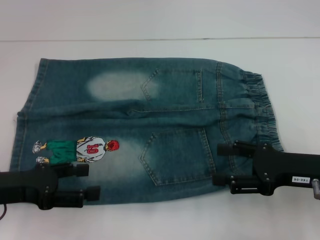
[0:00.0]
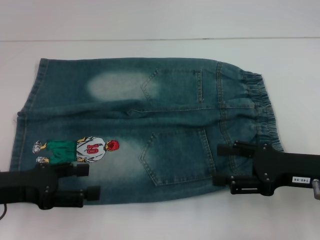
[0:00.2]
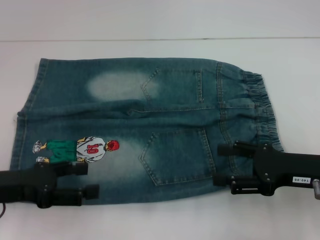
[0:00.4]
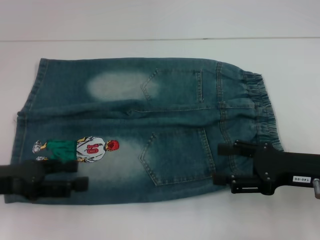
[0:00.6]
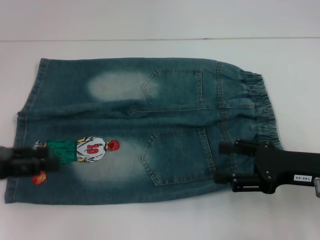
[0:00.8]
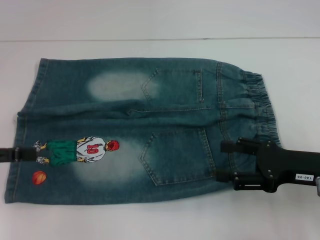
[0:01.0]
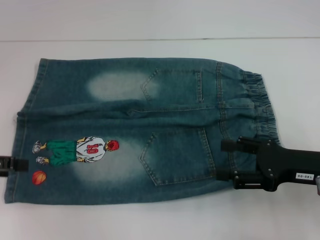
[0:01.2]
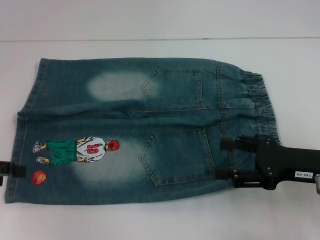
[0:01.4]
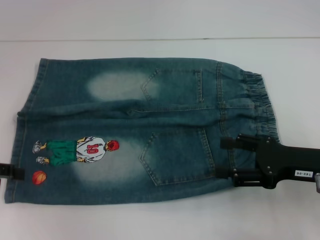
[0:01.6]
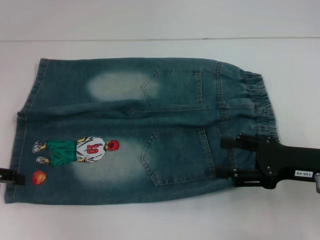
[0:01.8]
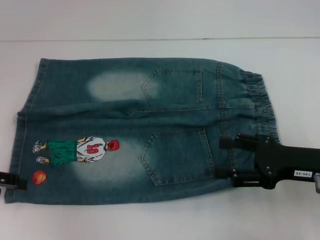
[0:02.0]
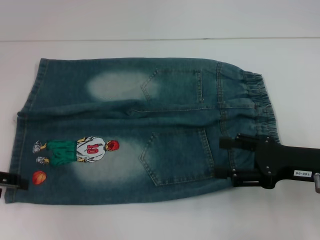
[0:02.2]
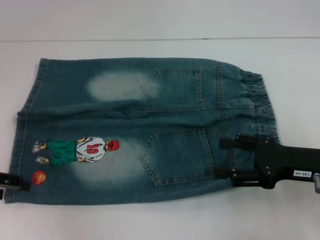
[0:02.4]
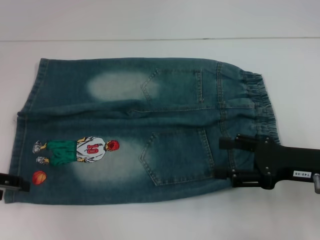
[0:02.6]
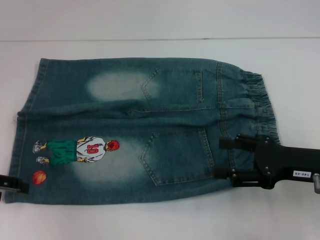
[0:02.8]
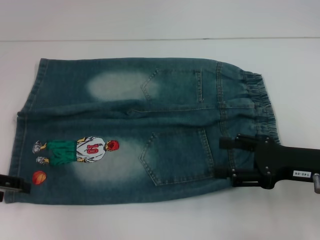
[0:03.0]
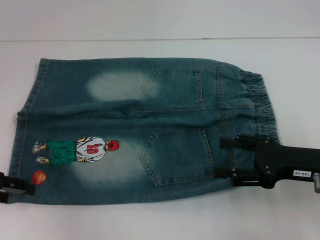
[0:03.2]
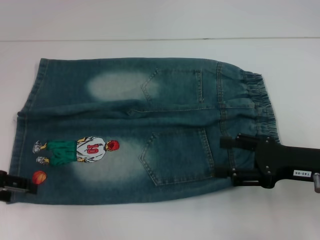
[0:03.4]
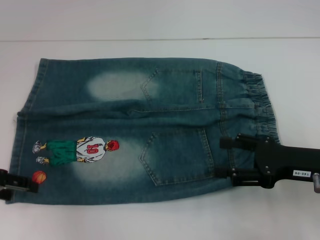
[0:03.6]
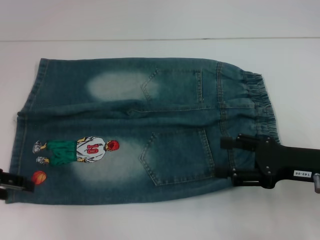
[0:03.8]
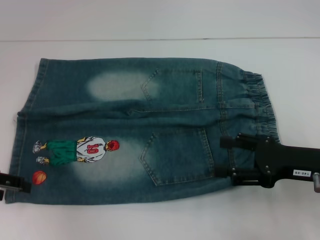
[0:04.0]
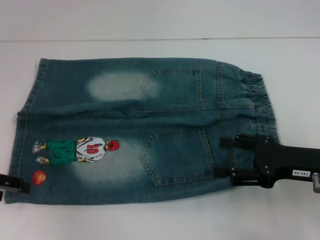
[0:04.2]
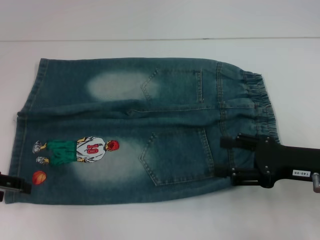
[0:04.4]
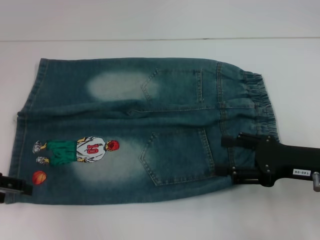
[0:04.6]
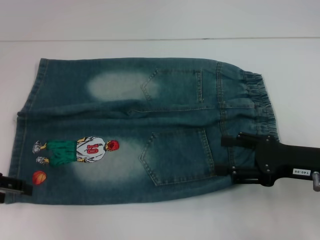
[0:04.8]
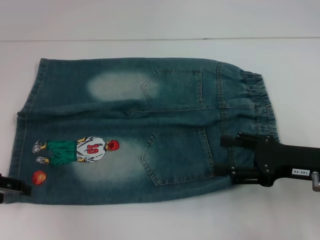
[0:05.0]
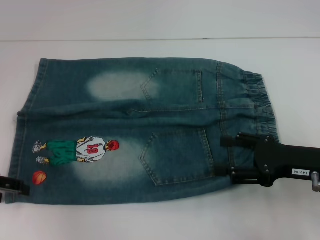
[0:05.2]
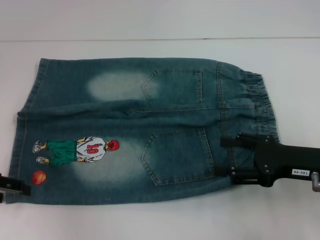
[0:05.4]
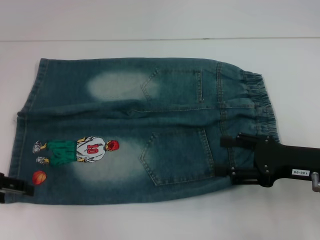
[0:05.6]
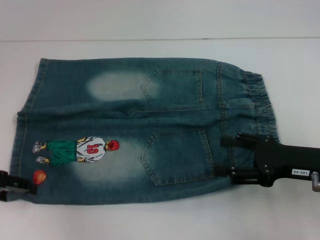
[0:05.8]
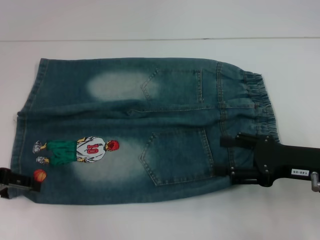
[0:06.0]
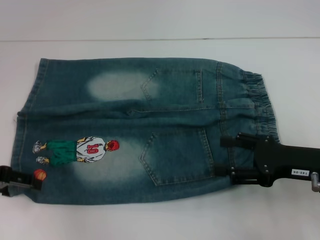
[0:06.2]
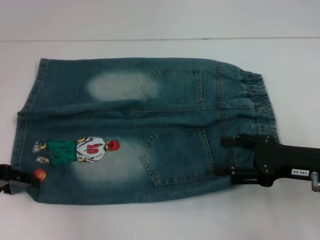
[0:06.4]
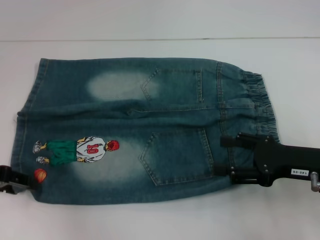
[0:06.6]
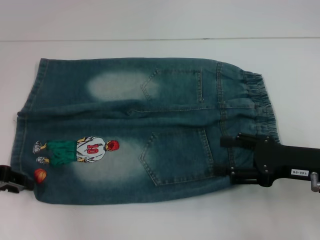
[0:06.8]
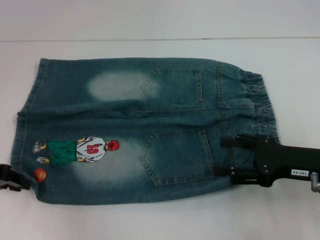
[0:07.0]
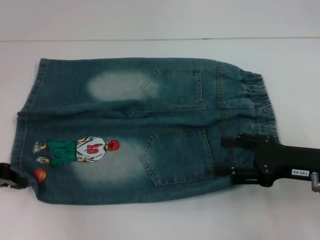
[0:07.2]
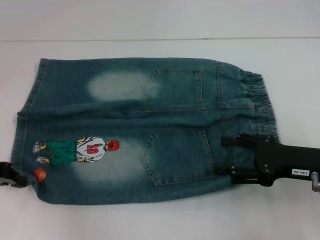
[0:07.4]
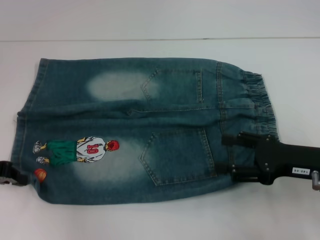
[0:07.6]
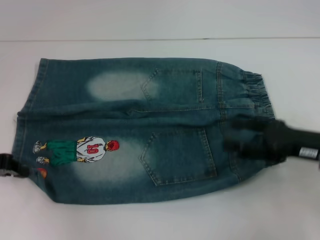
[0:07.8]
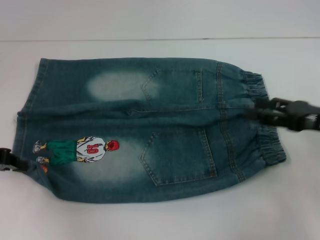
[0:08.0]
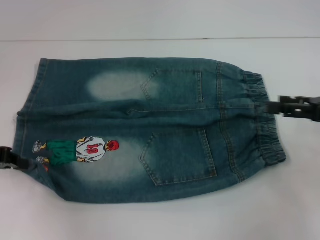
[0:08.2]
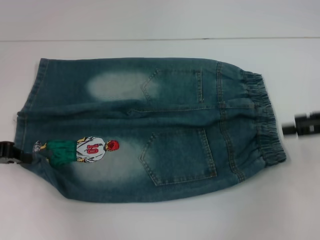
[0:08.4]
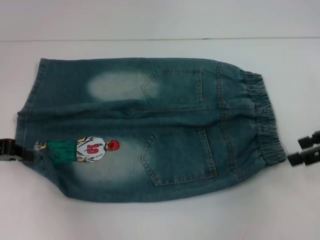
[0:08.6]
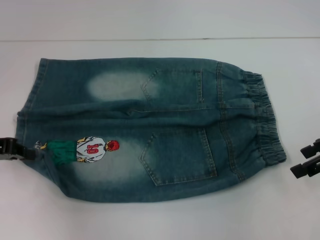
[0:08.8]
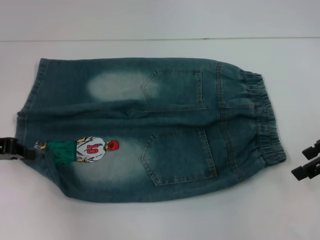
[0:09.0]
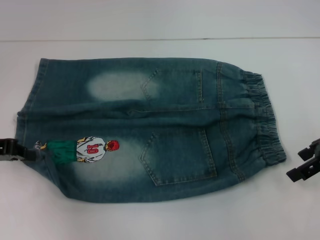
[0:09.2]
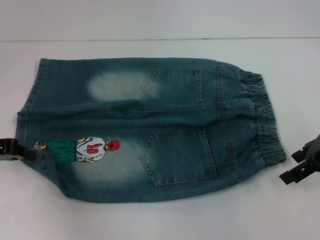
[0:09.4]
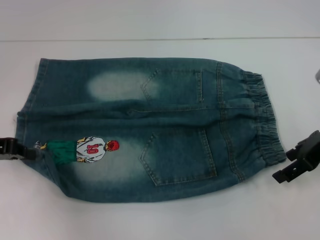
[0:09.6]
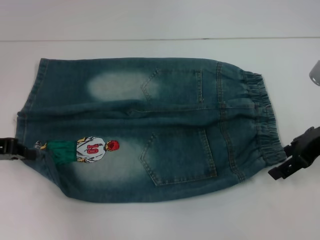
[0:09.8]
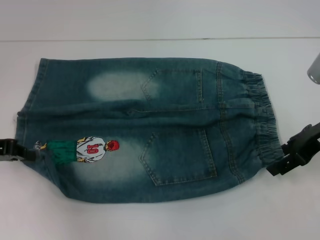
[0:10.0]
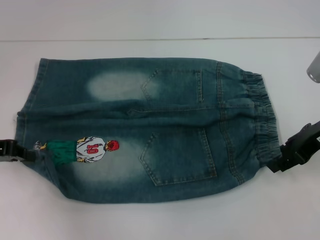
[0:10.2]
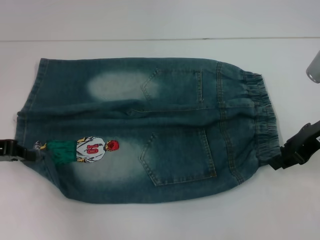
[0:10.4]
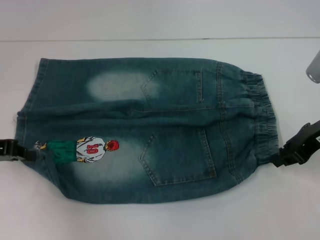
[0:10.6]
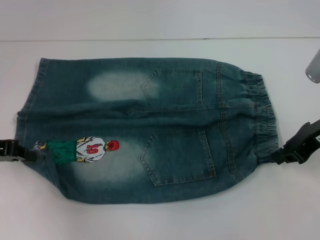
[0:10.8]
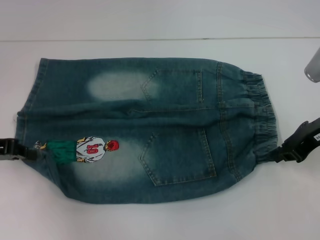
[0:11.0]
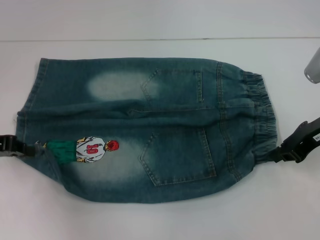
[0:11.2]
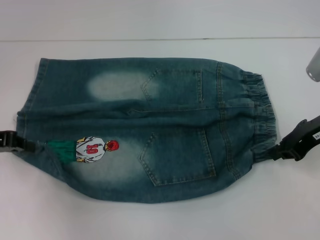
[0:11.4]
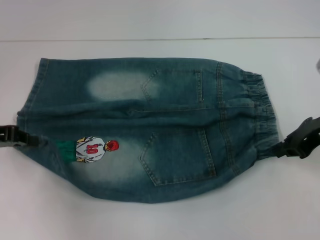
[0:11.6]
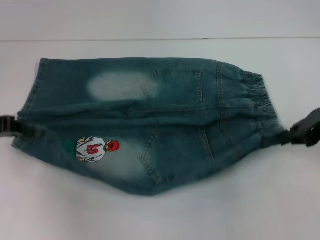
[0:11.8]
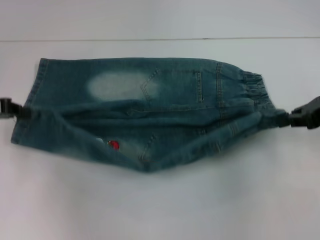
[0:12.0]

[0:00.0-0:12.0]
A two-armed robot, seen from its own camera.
Step, 0:00.0 to 0:07.4: Grab the lower left pant leg with your left hand.
Step, 0:07.8 to 0:11.2: Hold the lower right waistband with your right hand.
0:00.0 to 0:01.6: The left gripper moves to the left, about 10 cm.
0:01.6 to 0:03.0: The grippers make only small movements.
0:03.0 to 0:04.4: Neither gripper changes place.
0:04.4 to 0:06.0: Both grippers stay put.
0:06.0 to 0:07.6: The left gripper closes.
0:07.6 to 0:09.0: The right gripper shifts some 10 cm upward, forward and to the right.
0:09.0 to 0:10.4: The right gripper moves approximately 5 cm.
0:10.4 to 0:12.0: The right gripper closes its fingers.

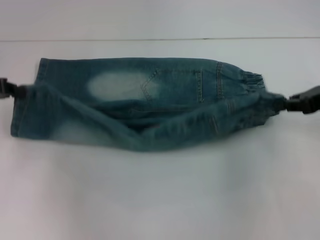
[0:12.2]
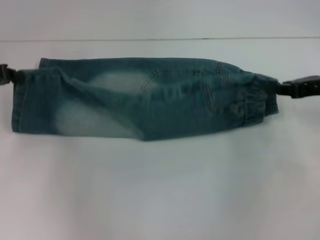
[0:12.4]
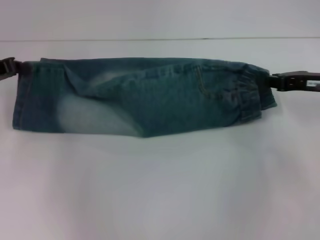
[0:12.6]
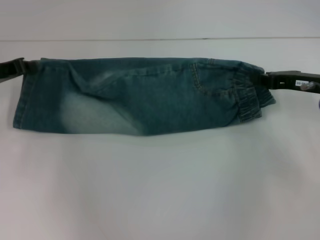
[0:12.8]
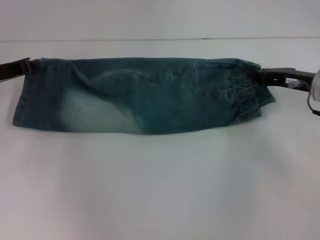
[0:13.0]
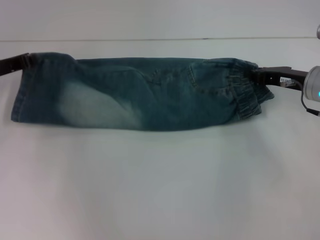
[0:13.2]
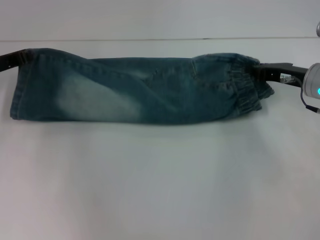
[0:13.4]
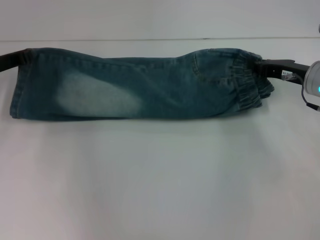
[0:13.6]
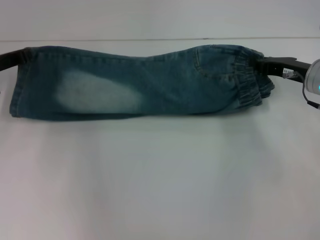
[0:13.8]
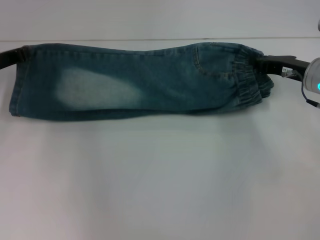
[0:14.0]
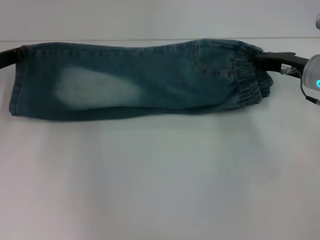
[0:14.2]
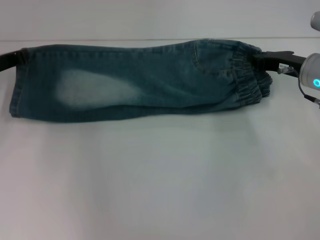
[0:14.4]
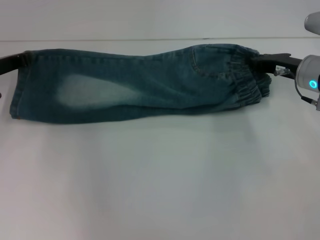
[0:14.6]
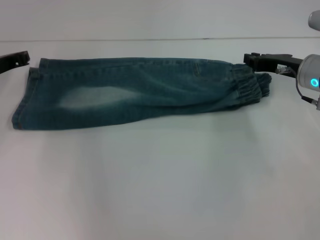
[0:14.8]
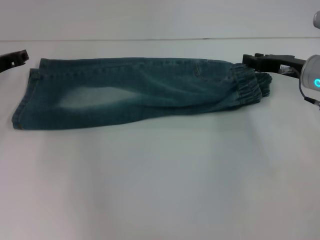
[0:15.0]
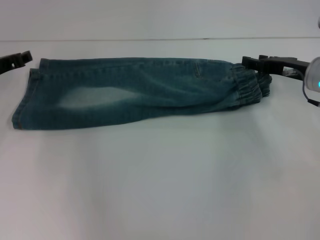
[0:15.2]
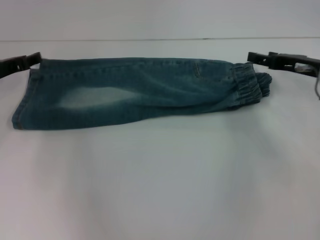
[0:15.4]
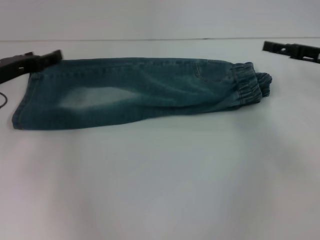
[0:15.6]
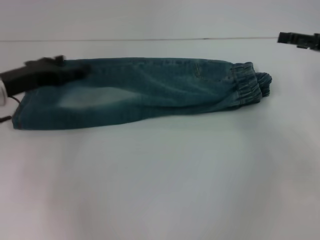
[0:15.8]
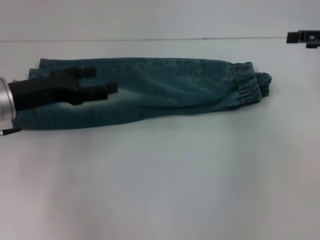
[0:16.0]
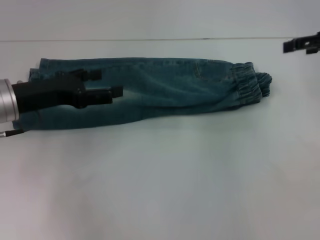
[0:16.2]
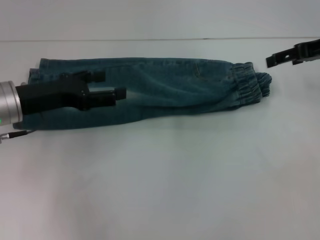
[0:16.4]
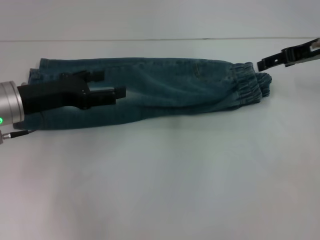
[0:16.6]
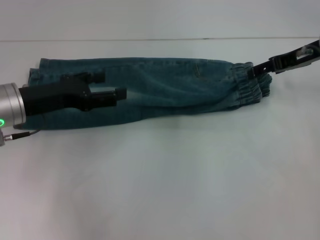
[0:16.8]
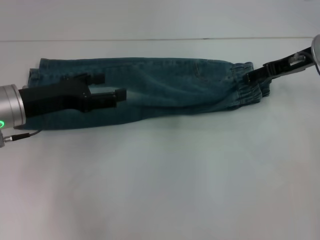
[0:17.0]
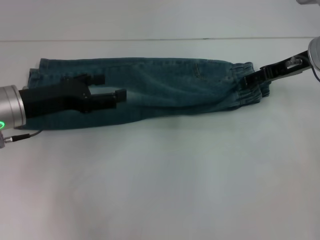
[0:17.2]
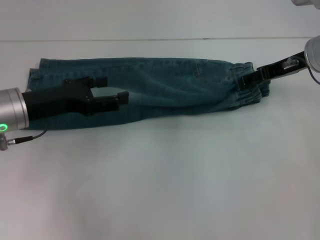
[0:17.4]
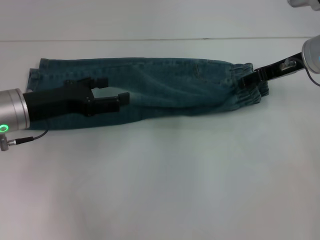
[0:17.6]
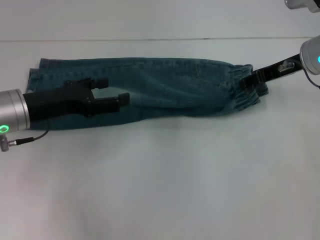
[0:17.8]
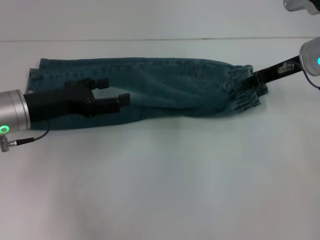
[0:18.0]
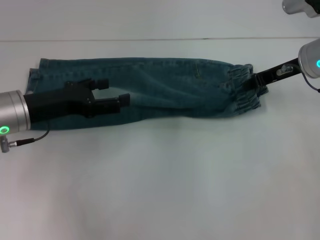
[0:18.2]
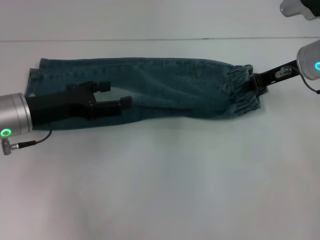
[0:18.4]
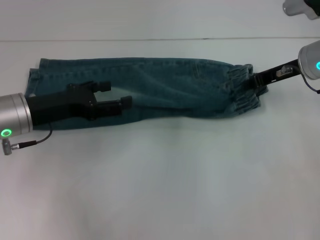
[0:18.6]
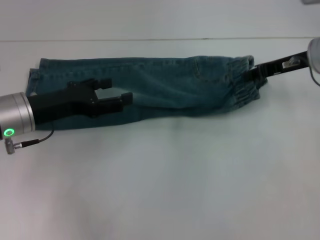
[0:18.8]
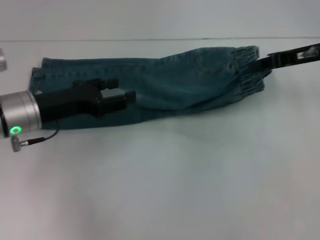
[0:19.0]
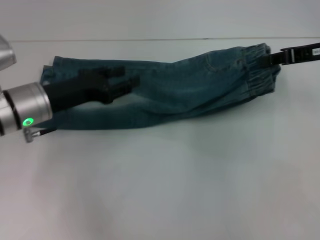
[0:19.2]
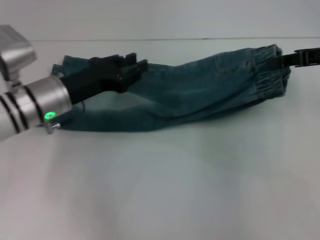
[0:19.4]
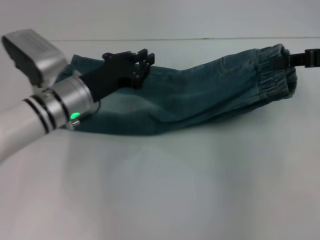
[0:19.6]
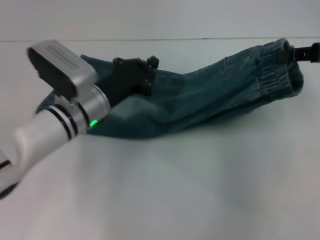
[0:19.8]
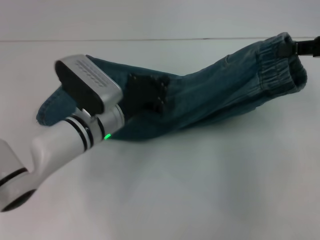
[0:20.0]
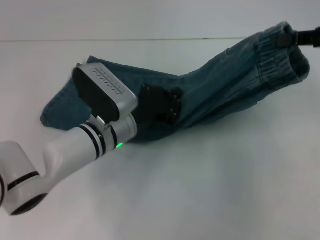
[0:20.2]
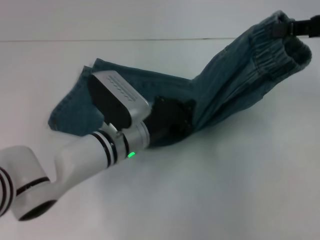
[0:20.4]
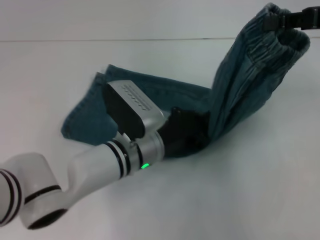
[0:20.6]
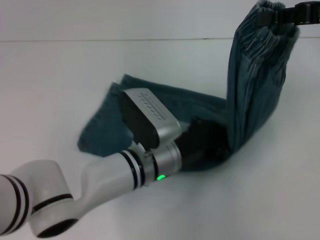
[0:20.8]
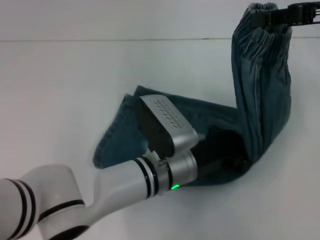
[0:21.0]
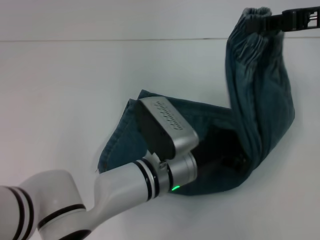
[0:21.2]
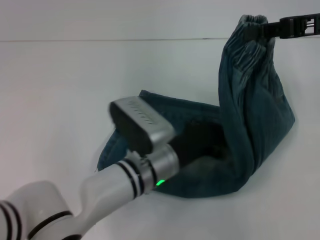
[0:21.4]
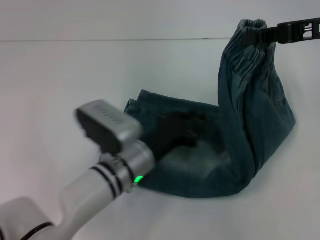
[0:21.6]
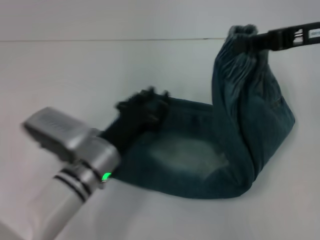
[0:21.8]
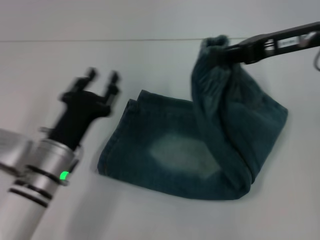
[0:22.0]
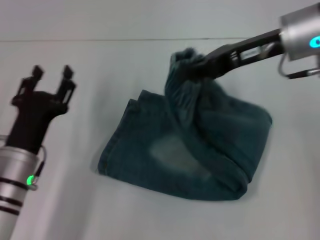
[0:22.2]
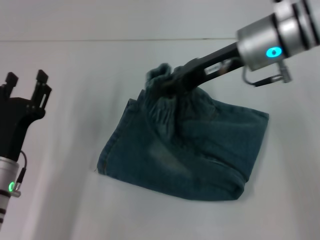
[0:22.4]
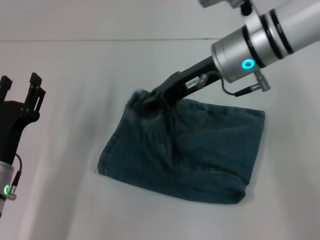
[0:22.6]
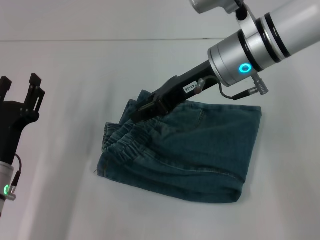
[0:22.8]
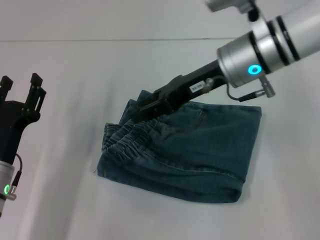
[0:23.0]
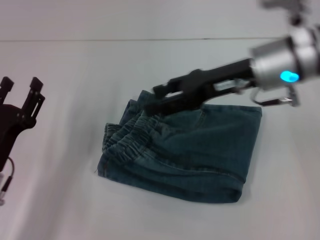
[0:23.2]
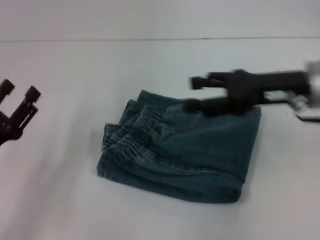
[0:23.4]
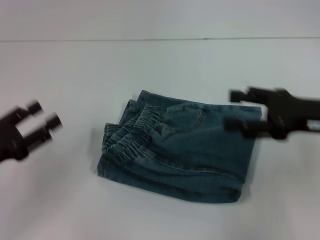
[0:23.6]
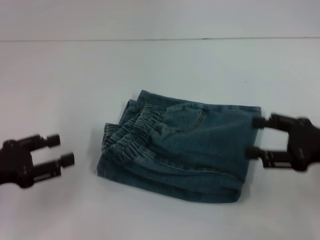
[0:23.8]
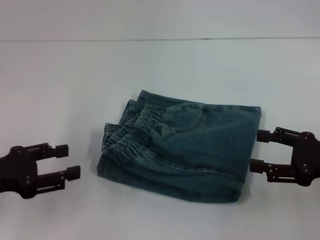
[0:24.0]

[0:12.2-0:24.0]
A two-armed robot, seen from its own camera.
Step, 0:12.2 to 0:15.2: Fold upward with your right hand.
Step, 0:15.4 to 0:18.6: Grab the waistband with your right hand.
Step, 0:18.8 to 0:21.4: Press the middle of the pants with your left hand.
Step, 0:21.6 to 0:23.2: Fold to the left with your right hand.
0:12.2 to 0:13.6: The left gripper heads forward, covering approximately 5 cm, while the right gripper moves downward and to the left, some 10 cm.
0:13.6 to 0:15.2: The left gripper opens its fingers.
0:15.2 to 0:16.6: The right gripper heads upward, covering about 10 cm, and opens up. The left gripper heads backward and to the right, covering about 10 cm, and opens its fingers.
0:16.6 to 0:18.2: The right gripper changes place by roughly 5 cm, and closes up.
0:18.2 to 0:19.6: The left gripper moves to the right, approximately 10 cm, and closes its fingers. Meanwhile the right gripper heads to the right, backward and upward, covering some 10 cm.
0:19.6 to 0:21.0: The left gripper moves to the right and backward, about 15 cm; the right gripper goes roughly 5 cm upward.
0:21.0 to 0:22.6: Both grippers travel together to the left, approximately 20 cm. The left gripper opens up.
0:22.6 to 0:24.0: The right gripper moves to the right, backward and downward, some 25 cm, and opens up. The left gripper heads upward and to the left, covering roughly 10 cm.
